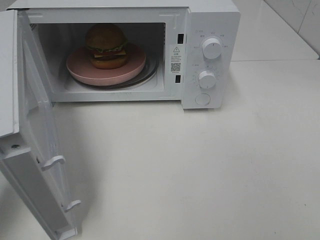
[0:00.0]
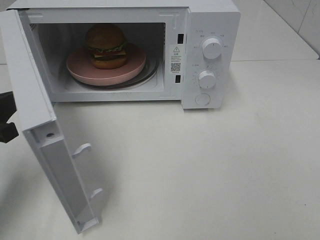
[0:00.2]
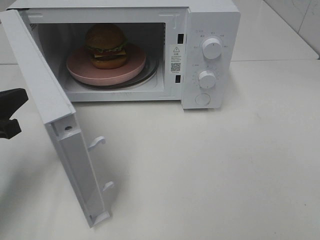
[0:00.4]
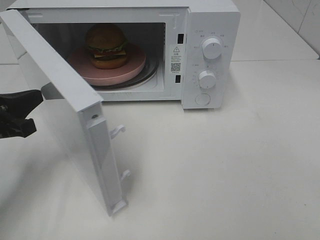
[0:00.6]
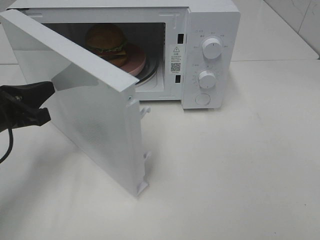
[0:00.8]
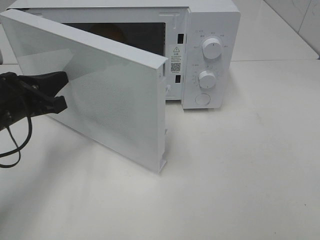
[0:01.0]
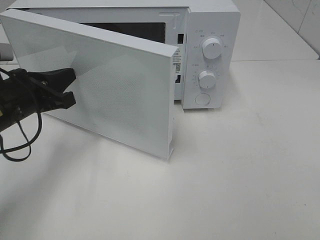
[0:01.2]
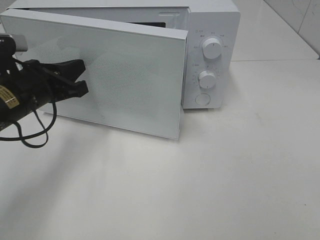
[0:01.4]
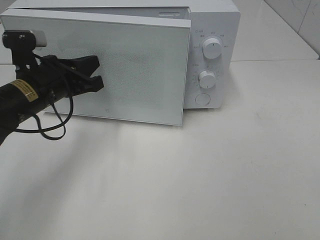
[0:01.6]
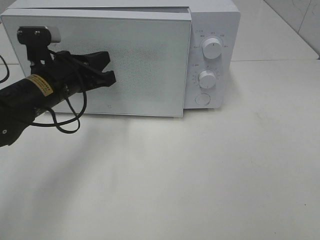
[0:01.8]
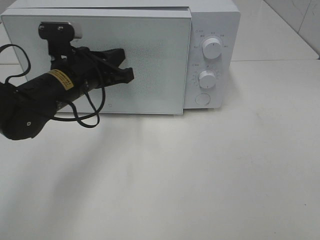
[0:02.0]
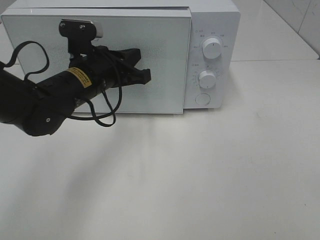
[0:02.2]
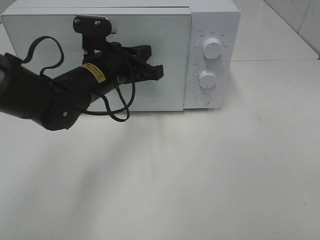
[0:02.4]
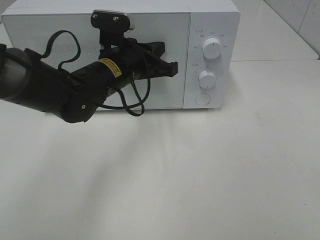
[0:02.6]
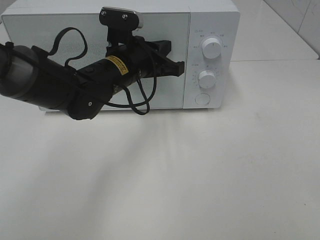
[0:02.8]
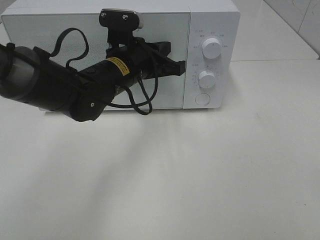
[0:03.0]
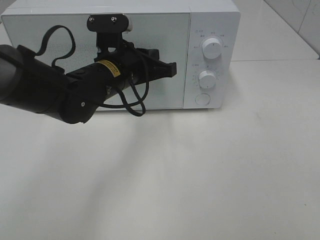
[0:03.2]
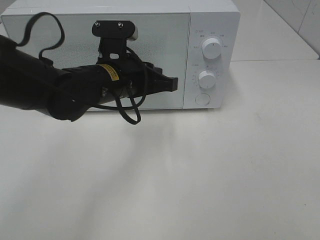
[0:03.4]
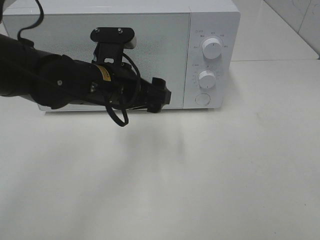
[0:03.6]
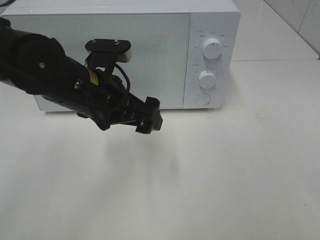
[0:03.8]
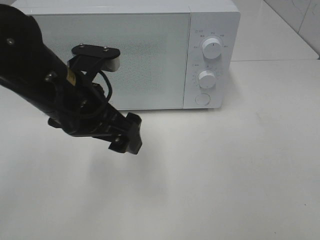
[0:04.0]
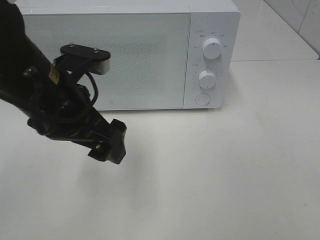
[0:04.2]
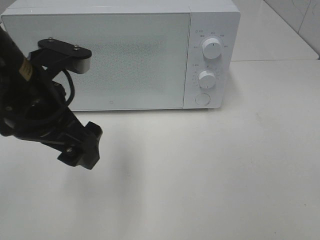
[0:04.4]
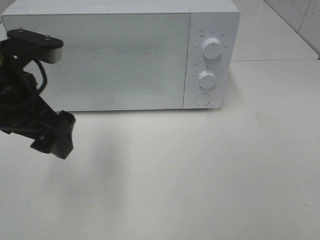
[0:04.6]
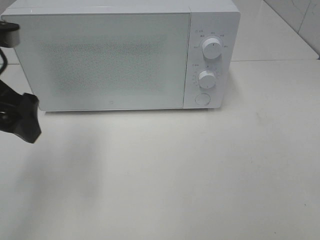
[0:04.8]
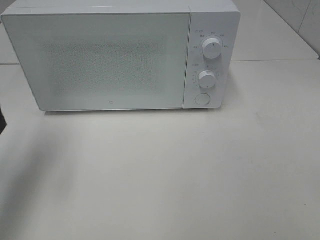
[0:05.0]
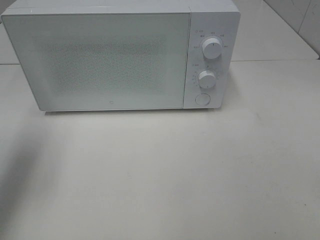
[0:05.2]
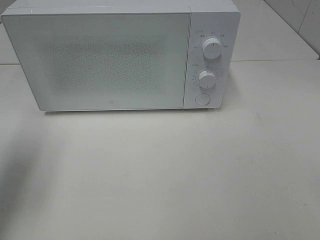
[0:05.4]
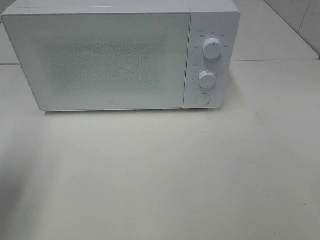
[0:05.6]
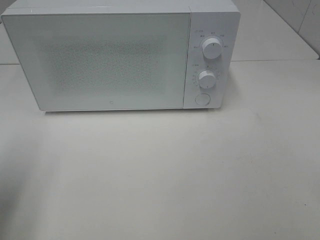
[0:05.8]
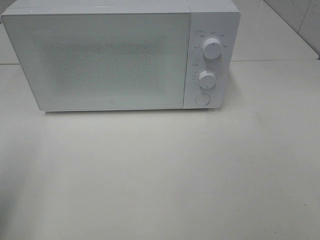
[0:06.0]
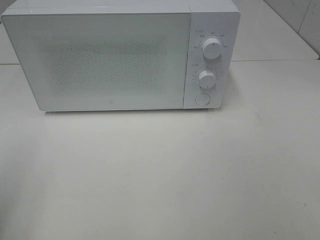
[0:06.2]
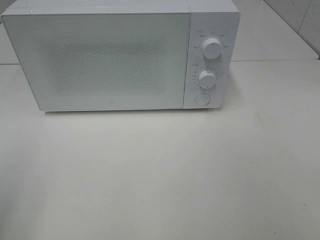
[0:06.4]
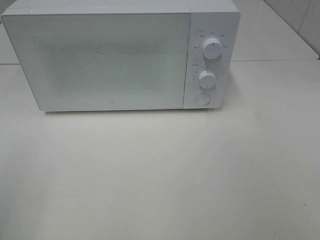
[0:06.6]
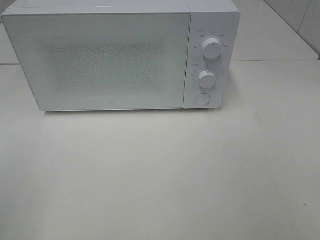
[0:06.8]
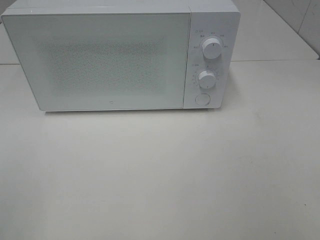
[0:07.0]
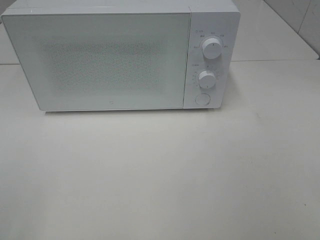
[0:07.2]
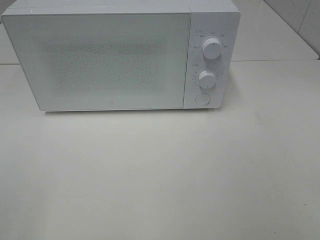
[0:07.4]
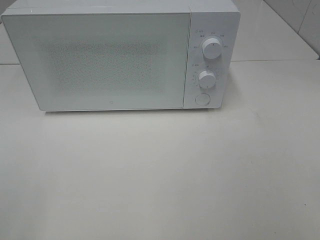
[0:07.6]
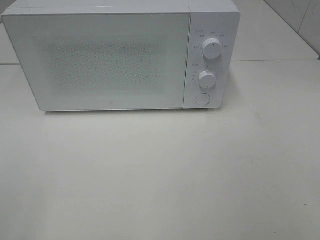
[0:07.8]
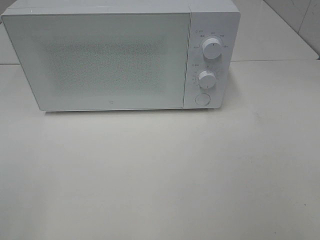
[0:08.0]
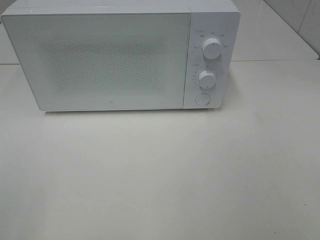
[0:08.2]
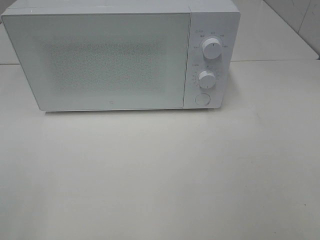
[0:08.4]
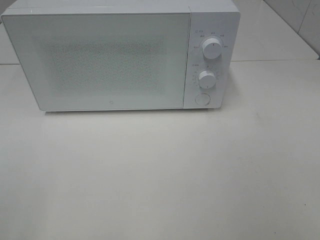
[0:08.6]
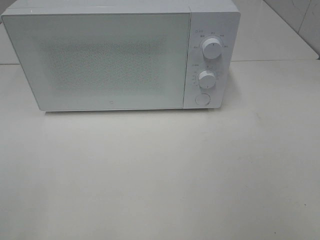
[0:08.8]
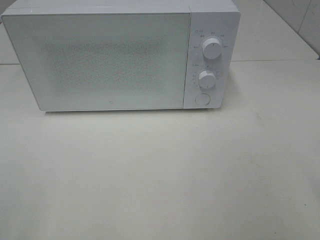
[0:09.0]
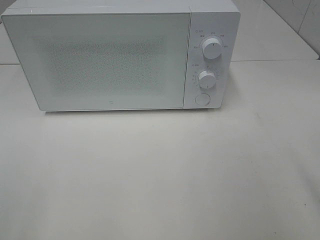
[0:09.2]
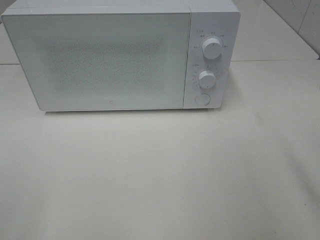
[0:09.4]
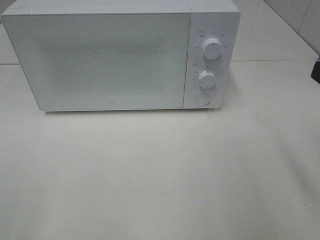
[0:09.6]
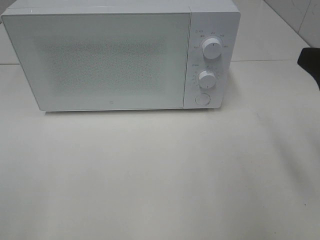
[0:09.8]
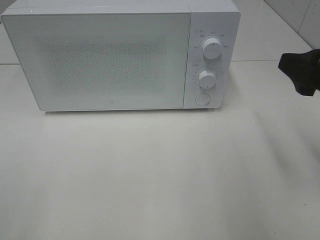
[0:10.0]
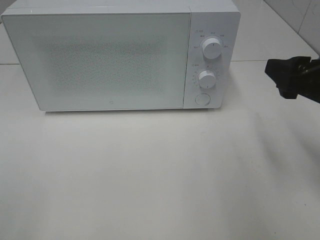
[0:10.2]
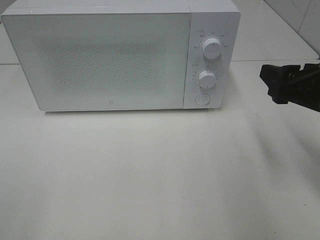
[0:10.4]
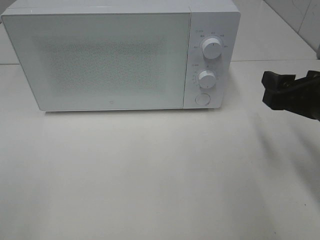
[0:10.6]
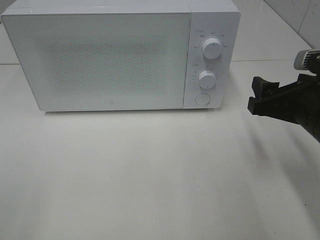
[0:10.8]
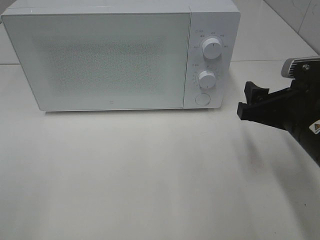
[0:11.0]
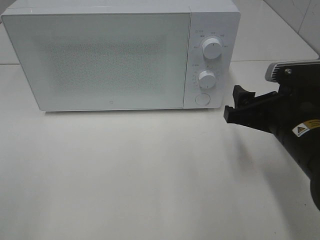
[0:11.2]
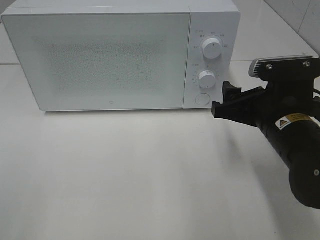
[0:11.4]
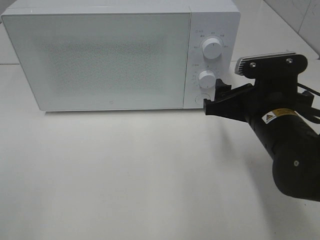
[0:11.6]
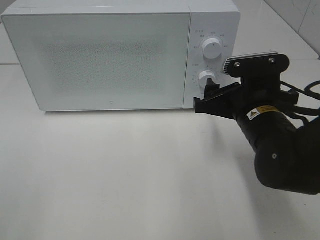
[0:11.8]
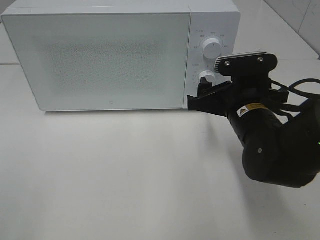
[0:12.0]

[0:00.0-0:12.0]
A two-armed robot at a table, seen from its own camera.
Task of the whole recording: Heat the burger.
Step, 0:00.0 to 0:03.0: Left hand: close the microwave door.
0:00.0 to 0:01.6: The left gripper is displaced forward and to the right by about 15 cm.
0:01.6 to 0:03.0: The left gripper shifts some 10 cm to the right.
0:03.0 to 0:04.4: The left gripper heads backward, to the left and upward, covering some 20 cm, and opens up.
0:04.4 to 0:06.0: The left gripper goes approximately 20 cm to the left and backward.
0:09.0 to 0:10.4: The right gripper is displaced forward and downward by roughly 15 cm.
0:10.4 to 0:12.0: The right gripper travels to the left, downward and forward by some 15 cm.

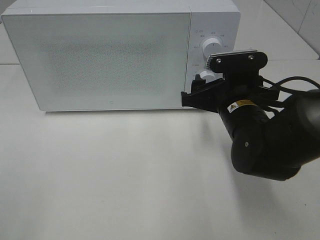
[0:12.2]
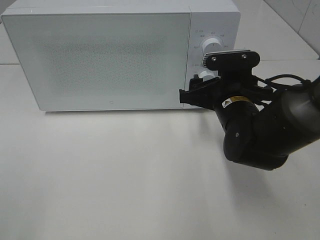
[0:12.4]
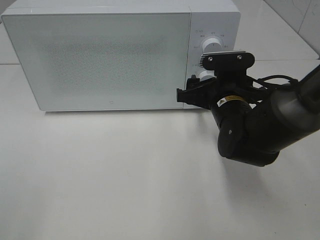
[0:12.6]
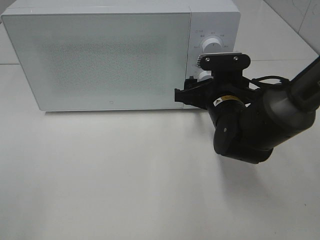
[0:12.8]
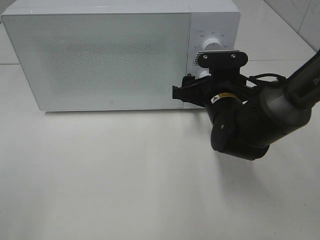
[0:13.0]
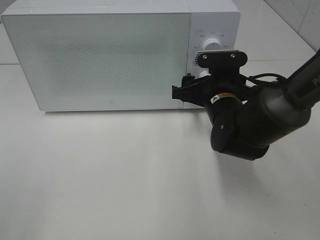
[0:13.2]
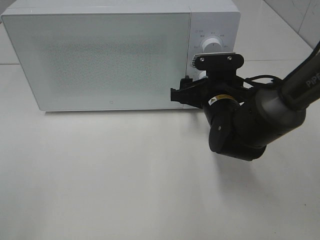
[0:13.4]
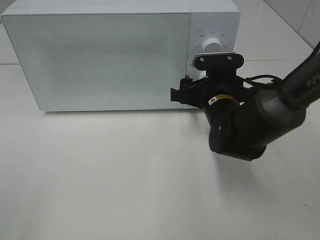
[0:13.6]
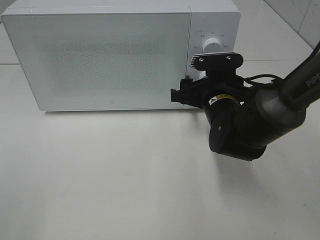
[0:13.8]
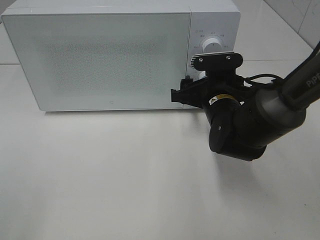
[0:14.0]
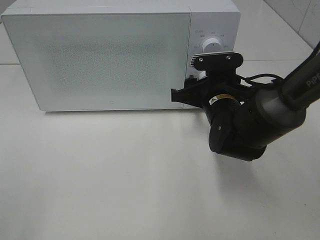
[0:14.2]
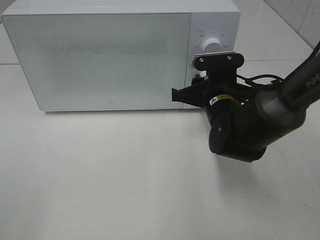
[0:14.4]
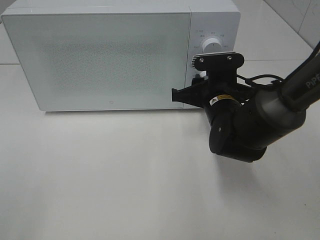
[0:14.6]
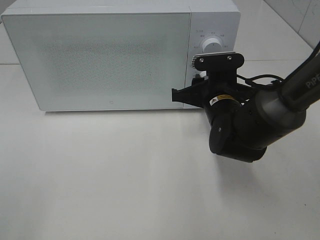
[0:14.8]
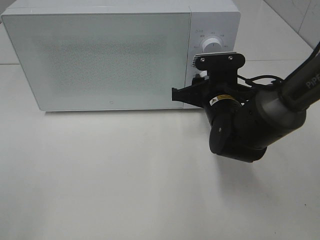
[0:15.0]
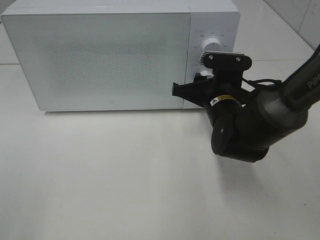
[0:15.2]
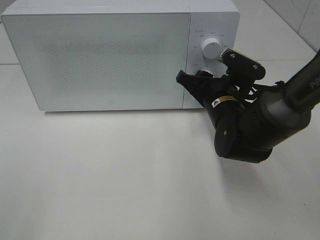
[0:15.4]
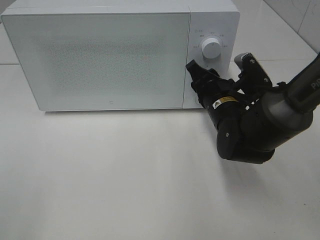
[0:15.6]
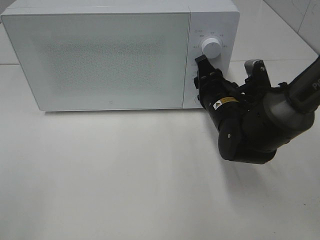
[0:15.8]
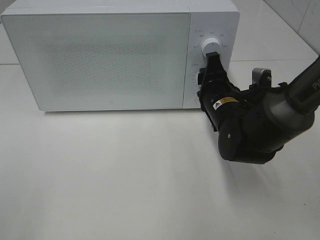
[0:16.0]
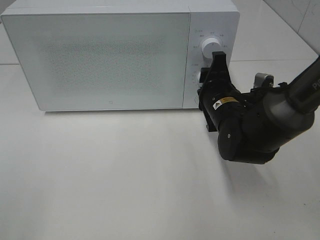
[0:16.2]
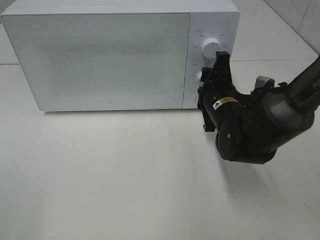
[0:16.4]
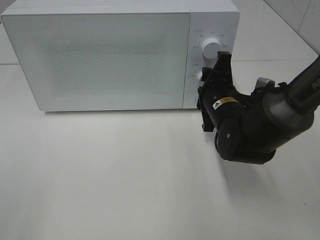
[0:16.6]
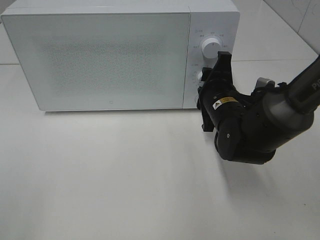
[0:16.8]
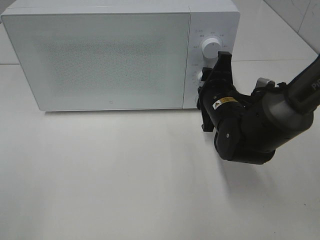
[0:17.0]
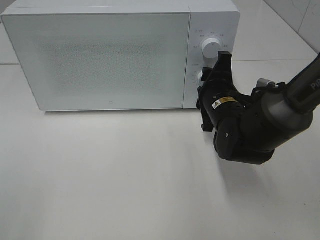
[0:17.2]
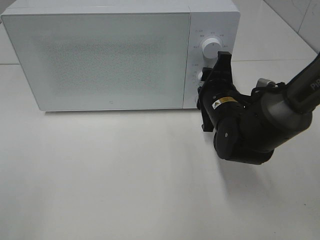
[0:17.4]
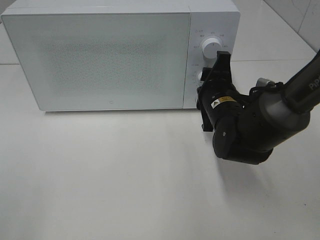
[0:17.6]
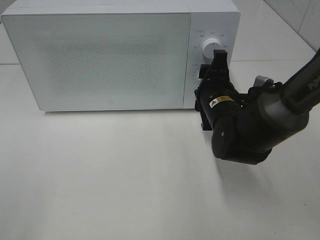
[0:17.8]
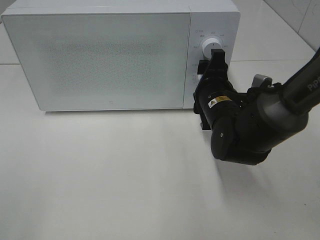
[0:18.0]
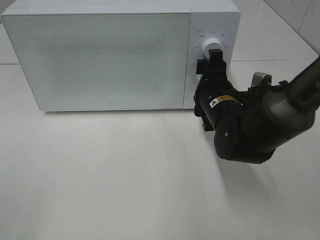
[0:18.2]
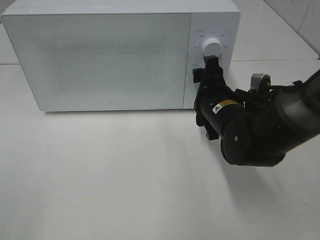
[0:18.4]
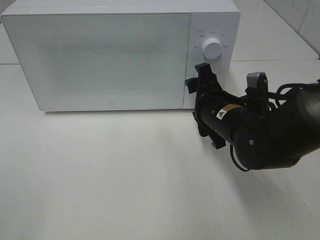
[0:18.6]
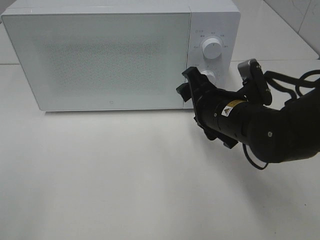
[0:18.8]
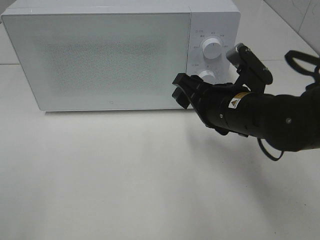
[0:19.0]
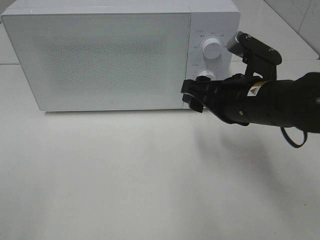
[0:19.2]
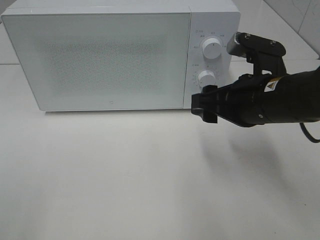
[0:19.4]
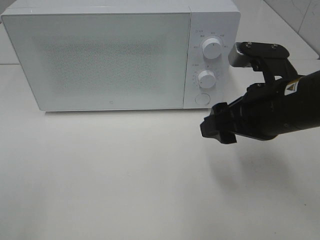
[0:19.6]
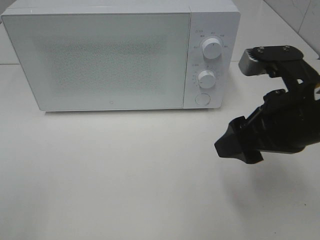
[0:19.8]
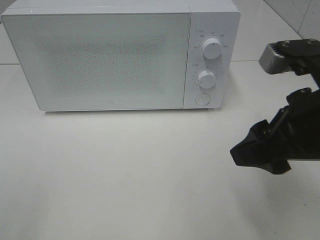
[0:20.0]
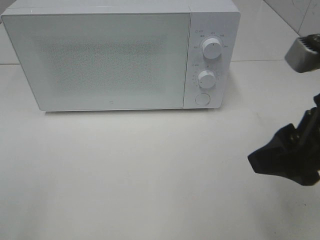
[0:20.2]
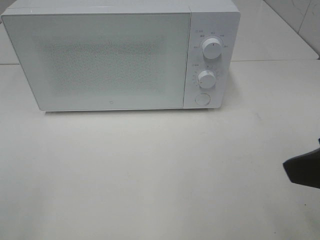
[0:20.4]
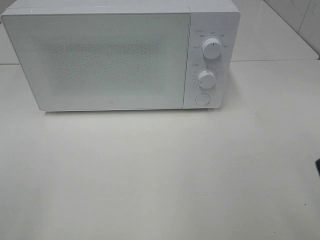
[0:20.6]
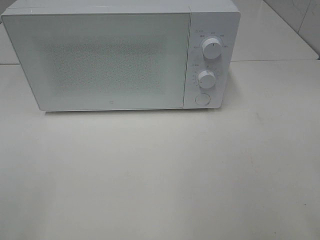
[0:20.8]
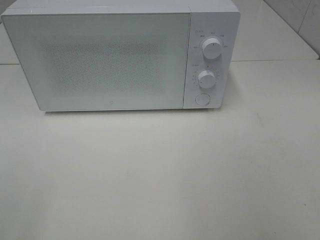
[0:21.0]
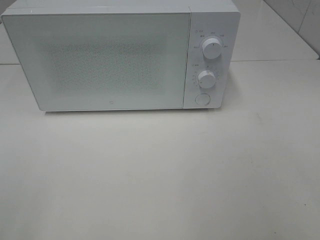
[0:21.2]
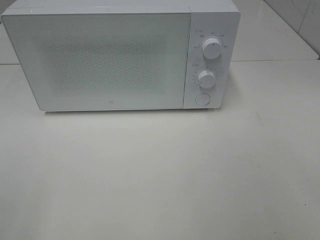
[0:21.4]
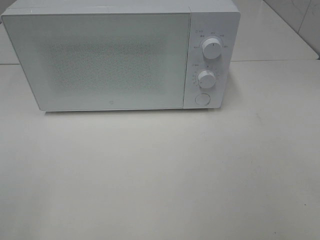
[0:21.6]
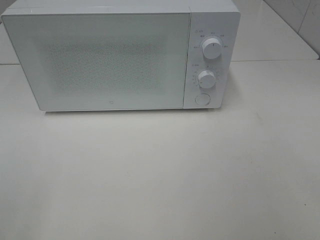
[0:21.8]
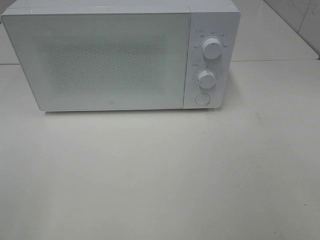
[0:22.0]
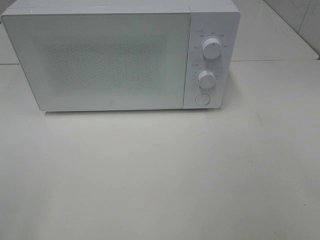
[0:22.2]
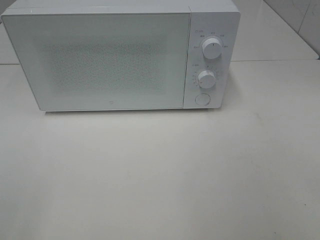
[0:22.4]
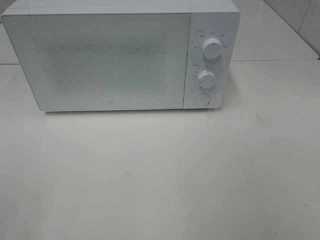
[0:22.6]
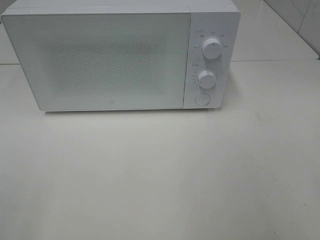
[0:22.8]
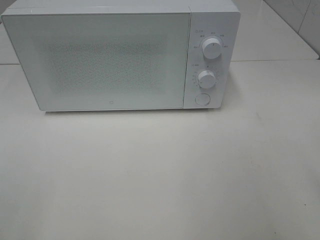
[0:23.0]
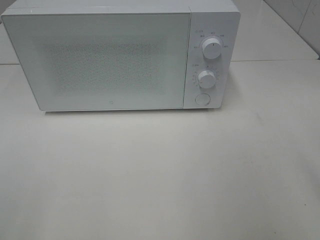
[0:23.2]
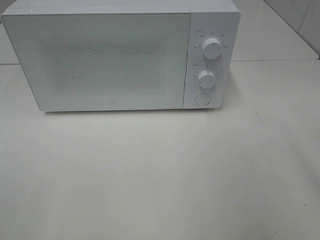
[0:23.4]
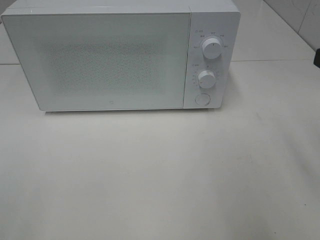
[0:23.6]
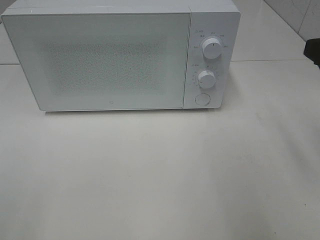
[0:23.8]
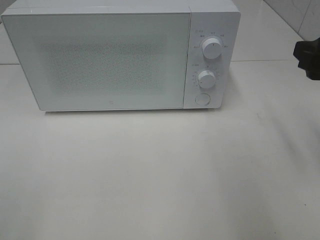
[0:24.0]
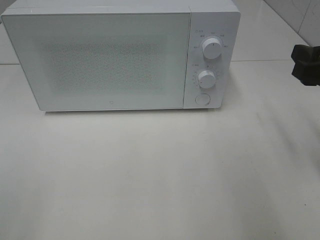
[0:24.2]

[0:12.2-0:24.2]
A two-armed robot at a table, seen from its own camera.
Task of the whole recording: Heat the burger.
Step, 0:12.2 to 0:17.8: Right hand: twist timer button.
0:12.2 to 0:13.8: The right gripper shifts by about 5 cm.
0:13.8 to 0:15.2: The right gripper closes its fingers.
0:16.6 to 0:18.2: The grippers stay close to where they were, moving slightly.
0:18.2 to 0:19.8: The right gripper travels backward, upward and to the right by approximately 15 cm.
0:19.8 to 0:21.2: The right gripper moves backward, to the right and upward, approximately 20 cm.
0:22.6 to 0:24.2: The right gripper goes about 20 cm forward and downward.
